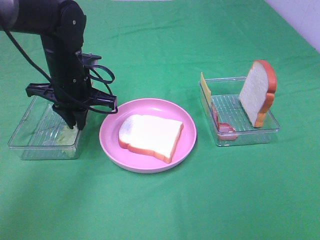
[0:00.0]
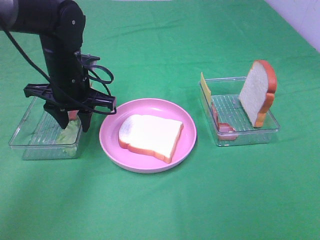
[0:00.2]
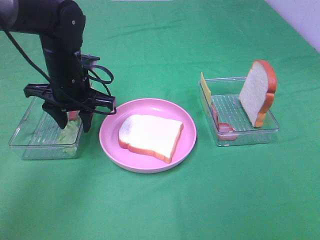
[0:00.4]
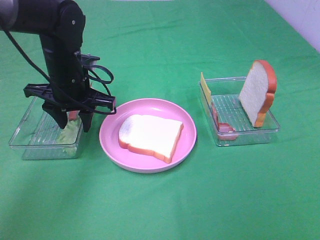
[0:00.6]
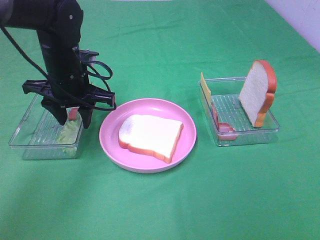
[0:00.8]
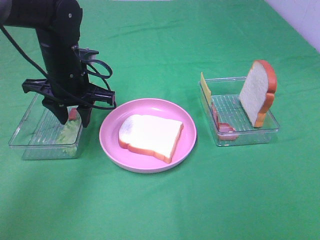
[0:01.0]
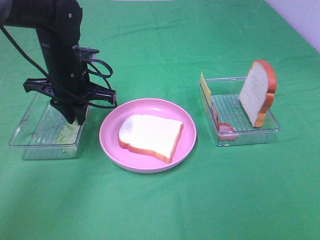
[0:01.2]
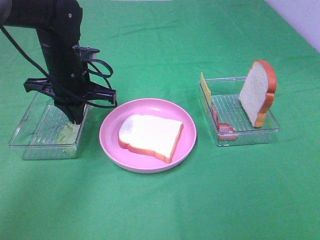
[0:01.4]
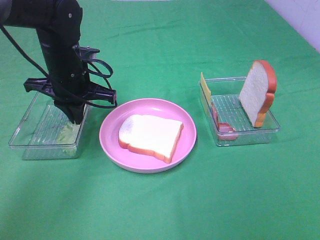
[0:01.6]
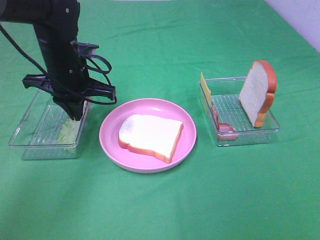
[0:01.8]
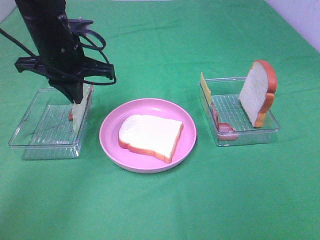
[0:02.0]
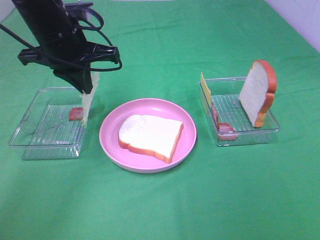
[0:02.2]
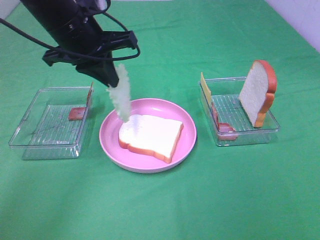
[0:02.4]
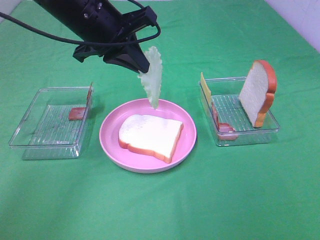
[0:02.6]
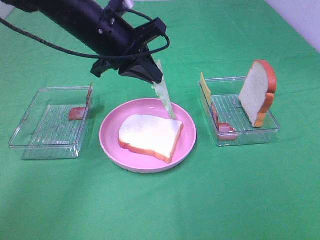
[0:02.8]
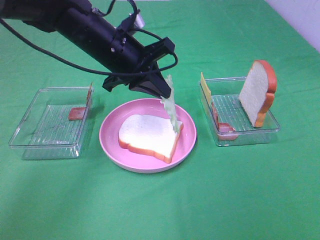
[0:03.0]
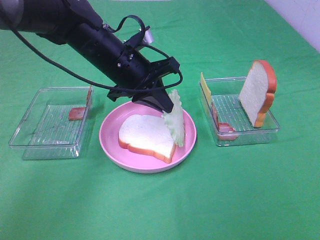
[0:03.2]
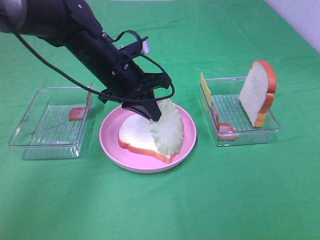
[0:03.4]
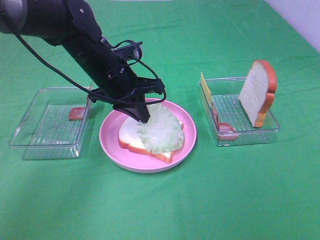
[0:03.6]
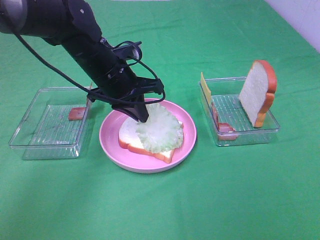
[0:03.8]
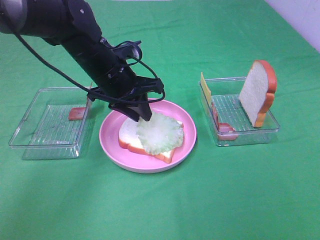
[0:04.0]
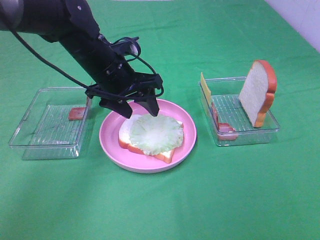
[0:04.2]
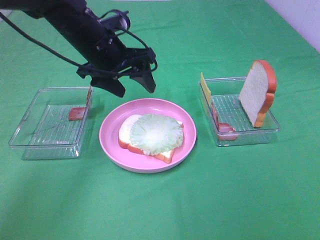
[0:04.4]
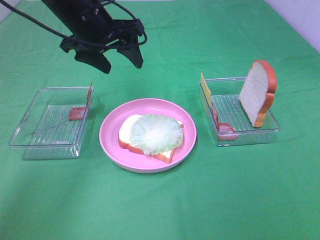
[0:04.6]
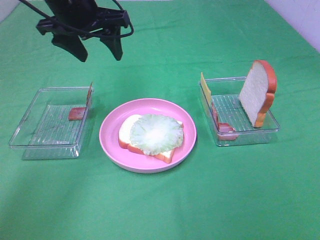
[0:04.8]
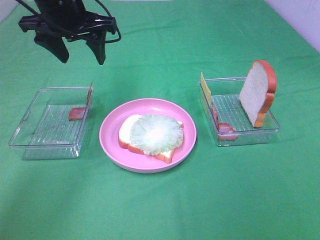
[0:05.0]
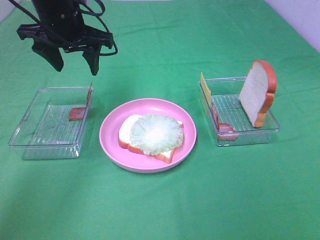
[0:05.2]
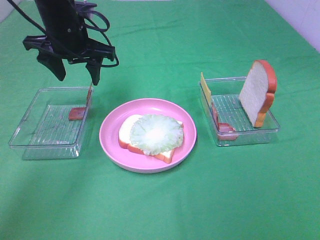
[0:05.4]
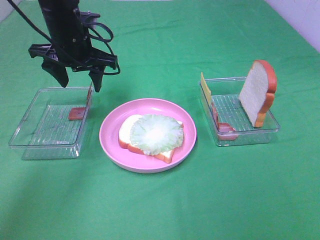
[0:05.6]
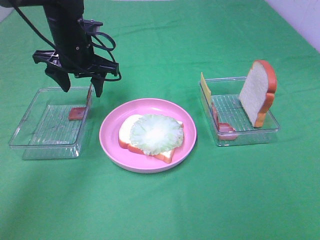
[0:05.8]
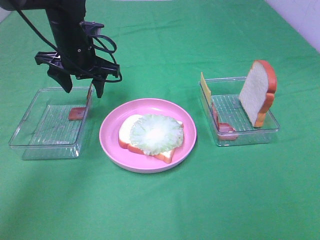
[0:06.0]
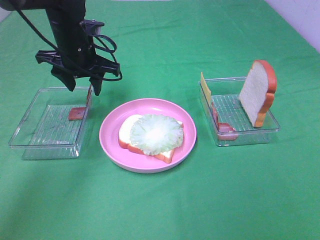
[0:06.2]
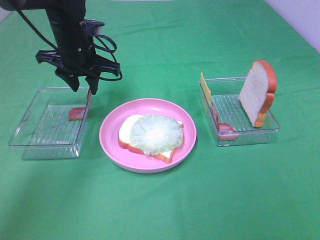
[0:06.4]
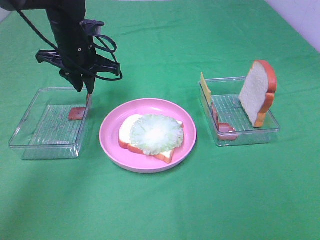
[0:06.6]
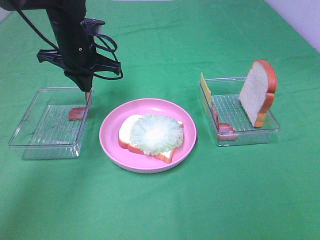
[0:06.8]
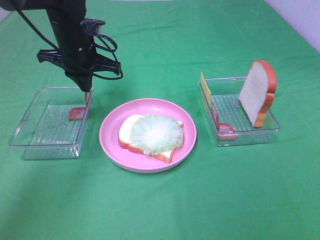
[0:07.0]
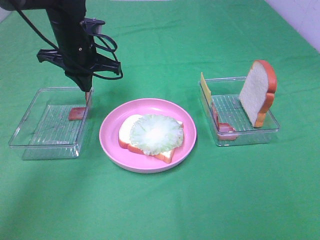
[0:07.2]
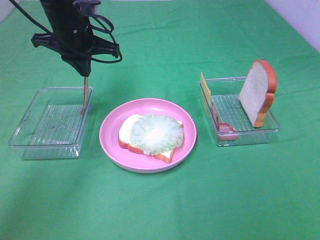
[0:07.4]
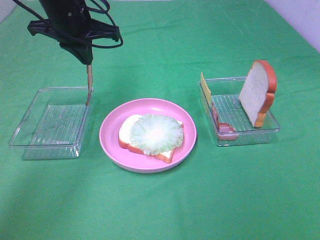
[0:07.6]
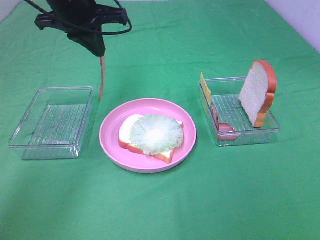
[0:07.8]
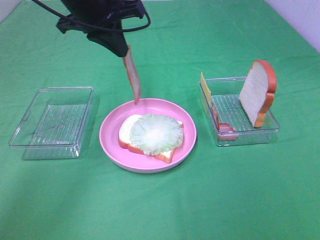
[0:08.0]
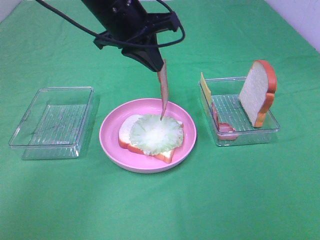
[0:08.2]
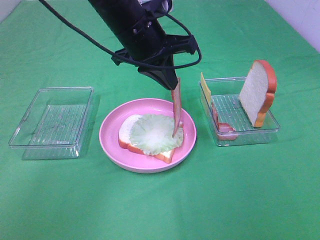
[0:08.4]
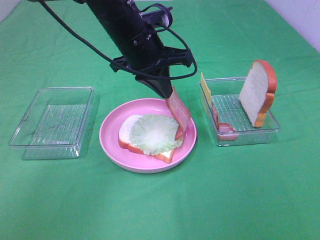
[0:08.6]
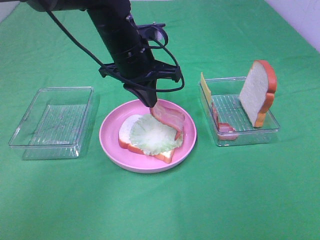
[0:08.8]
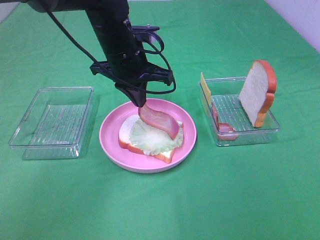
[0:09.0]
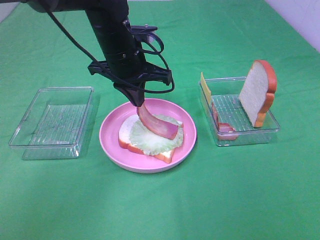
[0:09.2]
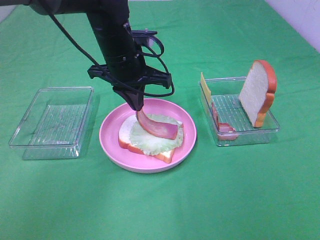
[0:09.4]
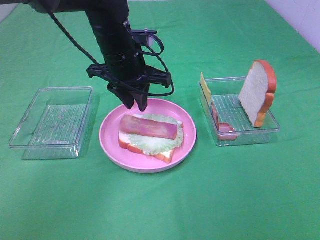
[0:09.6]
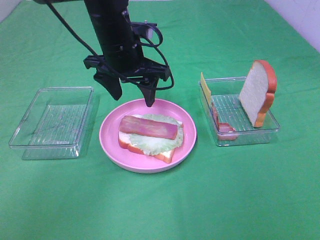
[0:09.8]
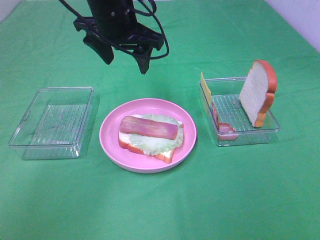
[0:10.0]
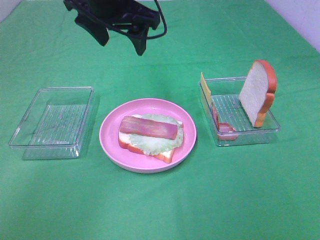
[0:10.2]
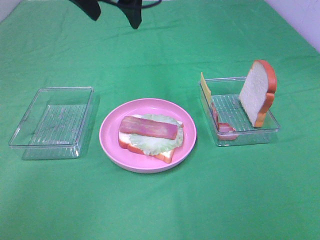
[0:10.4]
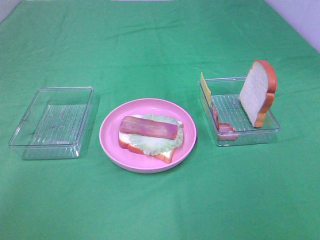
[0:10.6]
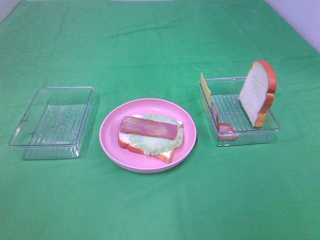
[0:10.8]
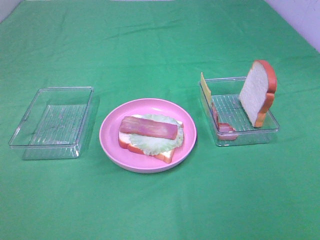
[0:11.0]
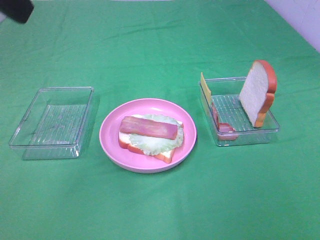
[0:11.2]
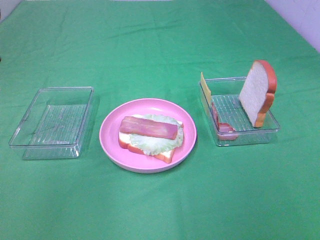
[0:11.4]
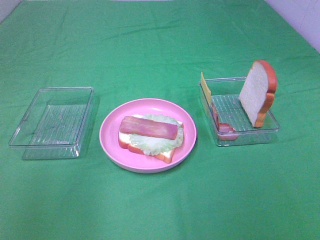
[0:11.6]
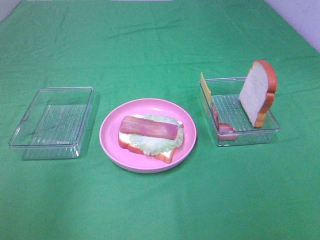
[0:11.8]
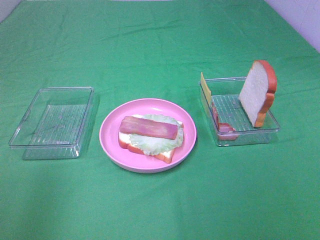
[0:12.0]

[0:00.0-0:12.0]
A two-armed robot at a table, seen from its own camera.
Task of the whole recording: Make sandwiches.
Step, 0:02.0 to 0:04.2: Left hand:place the lettuce slice on the bread slice.
Step, 0:04.4 to 0:07.4: Left hand:grab the bacon.
Step, 0:07.6 to 0:09.6: Left hand:place bacon on lettuce slice.
0:00.0 to 0:01.6: The two grippers keep their place.
0:01.6 to 0:03.0: The left gripper moves to the right, about 10 cm.
0:03.0 to 0:04.4: The left gripper opens up.
0:04.4 to 0:06.0: The left gripper ends up some 5 cm from where it was.
0:06.0 to 0:07.6: The left gripper travels upward by about 5 cm, and closes its fingers.
0:07.6 to 0:09.0: The left gripper heads to the right and downward, covering roughly 10 cm.
0:09.0 to 0:10.4: The left gripper travels upward by some 15 cm, and opens its fingers.
0:10.4 to 0:12.0: The left gripper is displaced backward and to the left by some 35 cm.

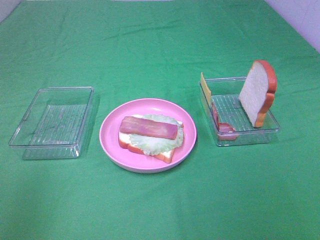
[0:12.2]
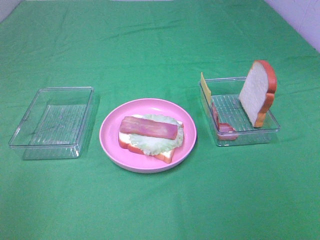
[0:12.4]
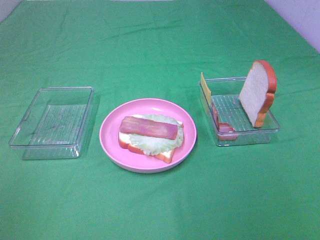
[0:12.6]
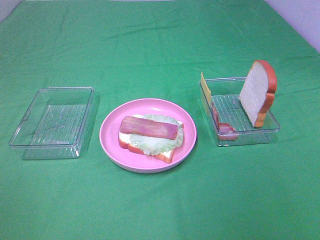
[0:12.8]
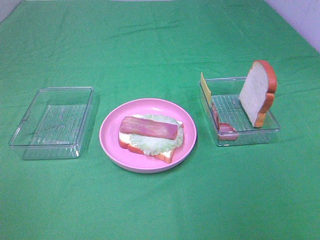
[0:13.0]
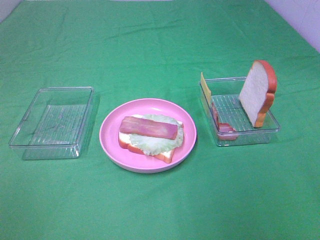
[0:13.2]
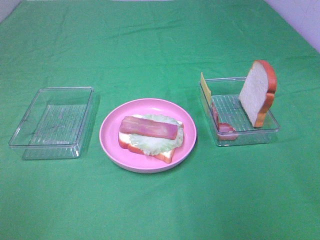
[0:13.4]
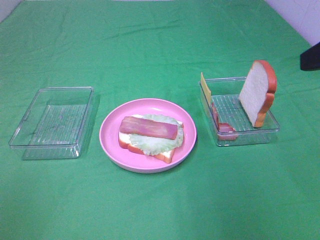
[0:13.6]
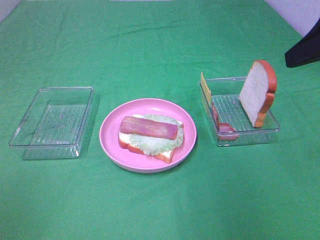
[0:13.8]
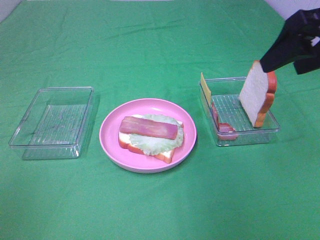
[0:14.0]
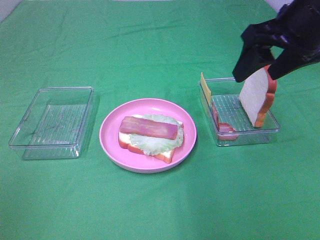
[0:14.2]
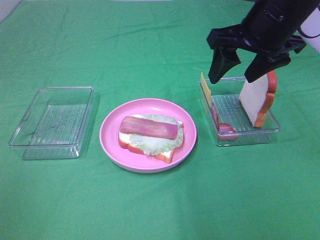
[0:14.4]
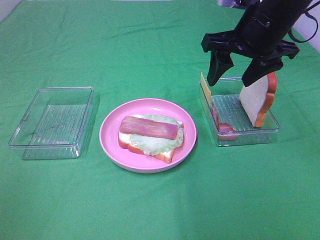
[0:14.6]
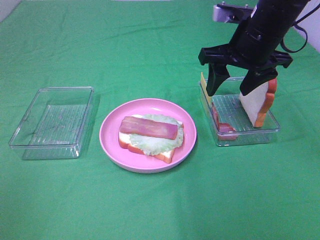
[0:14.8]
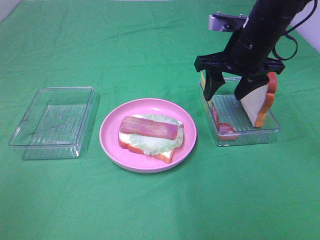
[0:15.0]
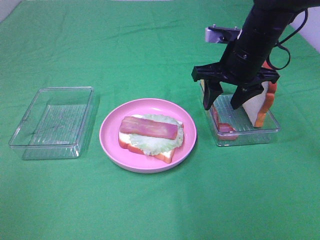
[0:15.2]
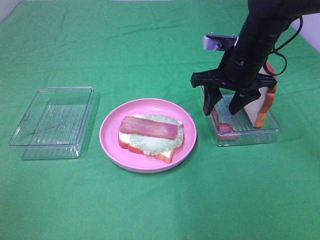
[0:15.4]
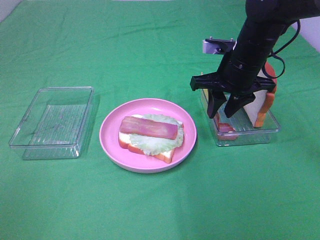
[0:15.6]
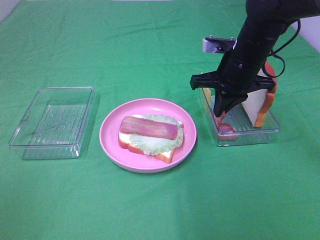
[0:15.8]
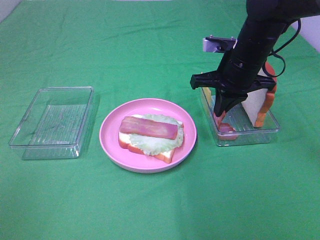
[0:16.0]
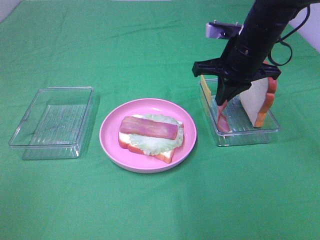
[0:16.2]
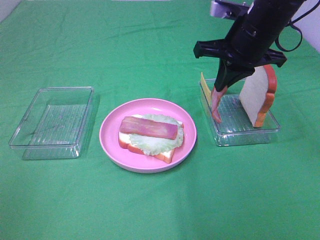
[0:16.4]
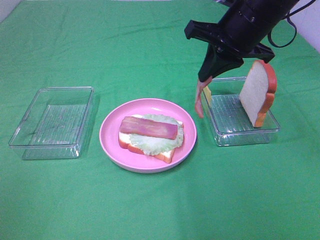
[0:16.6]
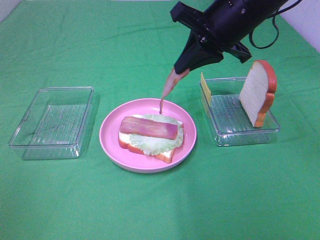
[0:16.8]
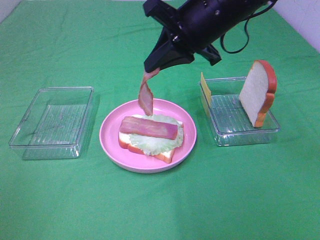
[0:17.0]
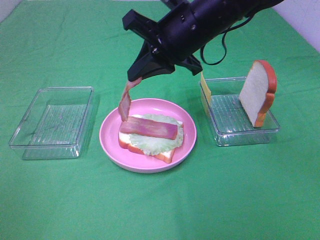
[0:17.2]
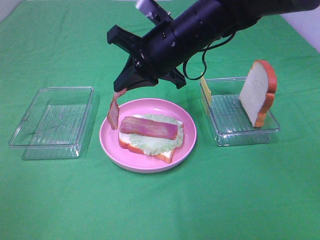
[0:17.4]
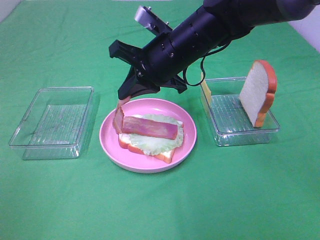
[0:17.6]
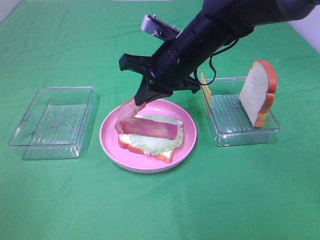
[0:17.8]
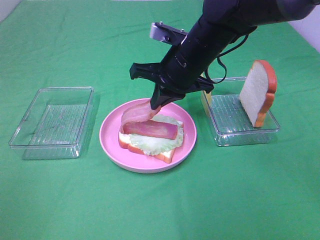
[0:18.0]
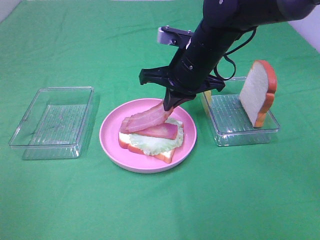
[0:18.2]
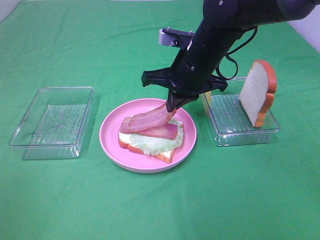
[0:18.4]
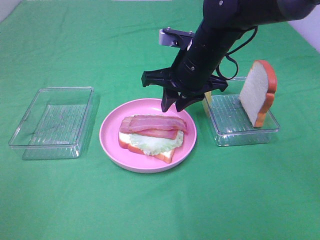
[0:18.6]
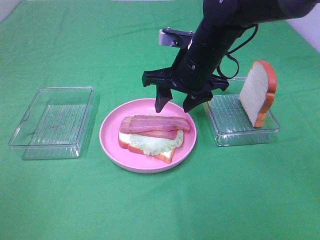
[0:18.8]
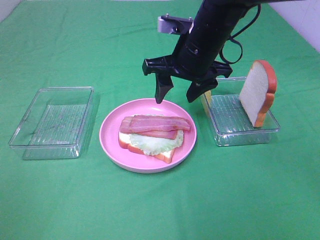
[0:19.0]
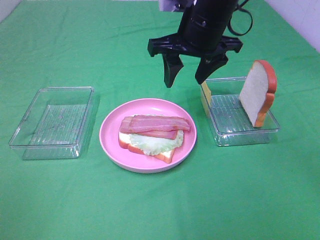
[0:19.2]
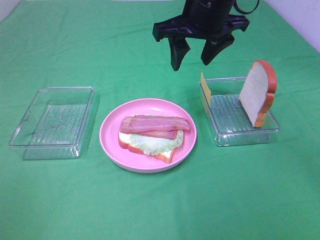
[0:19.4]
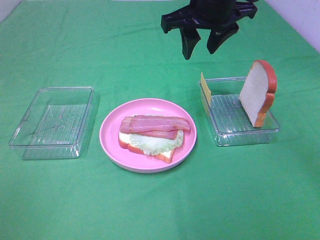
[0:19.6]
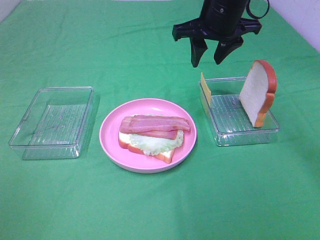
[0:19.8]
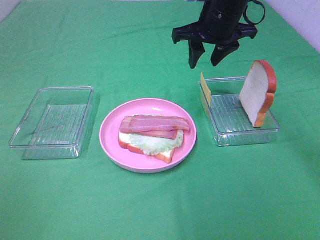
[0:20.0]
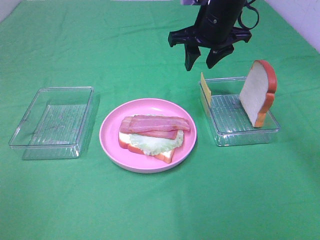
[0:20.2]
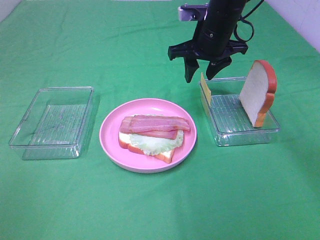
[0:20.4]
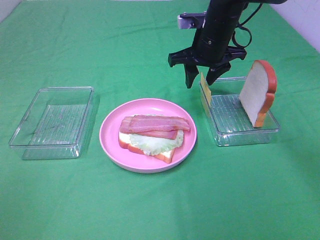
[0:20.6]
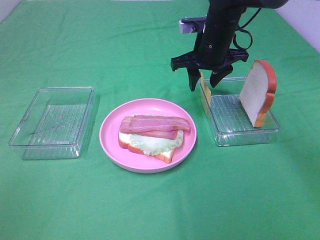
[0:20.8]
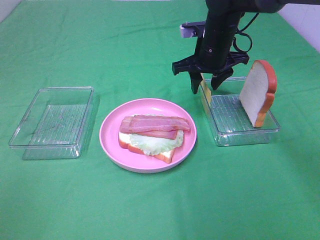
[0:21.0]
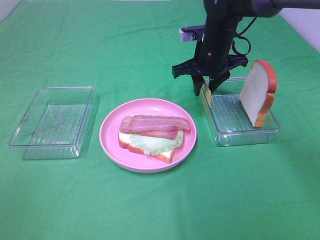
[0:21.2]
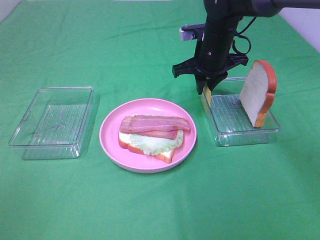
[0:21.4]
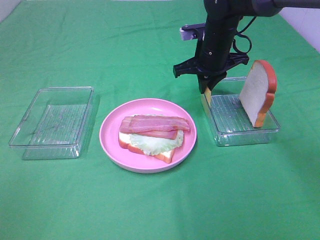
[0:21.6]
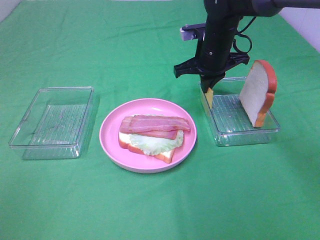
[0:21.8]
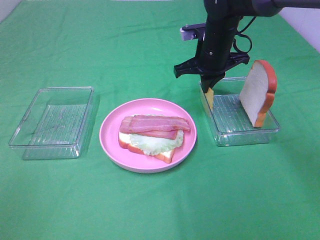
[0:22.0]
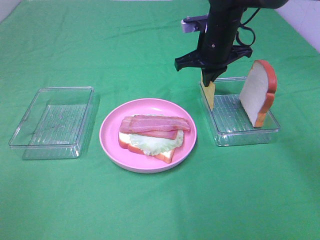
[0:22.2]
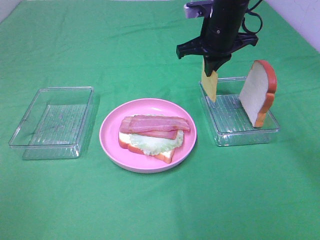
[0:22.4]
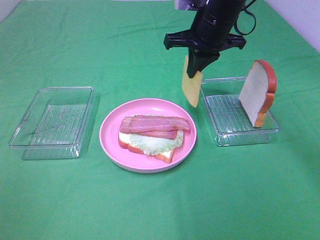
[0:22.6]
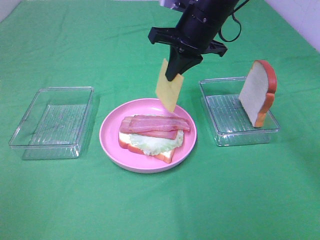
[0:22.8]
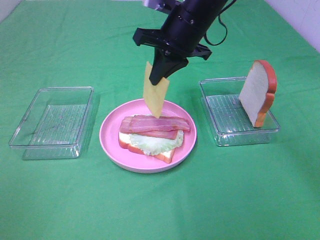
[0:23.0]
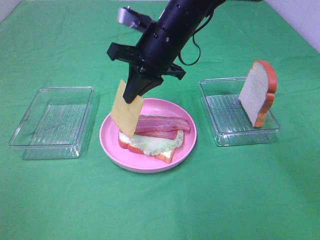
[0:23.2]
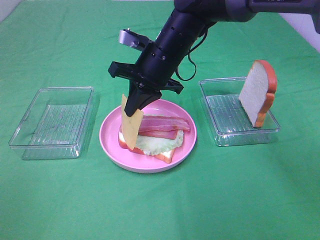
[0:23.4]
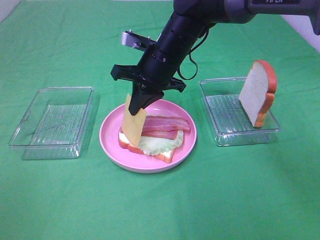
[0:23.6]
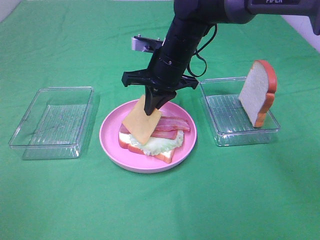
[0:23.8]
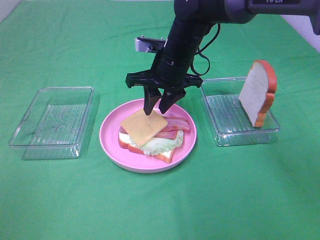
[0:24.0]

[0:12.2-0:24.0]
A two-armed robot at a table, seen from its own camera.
Task of the whole recording: Make sandwiches.
Step, 0:12.2 to 0:15.8: Right hand:grab the bacon.
Step, 0:16.0 to 0:18.6: Right hand:place bacon on bacon.
Step, 0:18.8 to 0:21.8: Right hand:grab the cheese slice.
0:13.6 to 0:15.2: The right gripper shifts roughly 25 cm forward, downward and to the left.
0:15.2 to 0:16.6: The right gripper moves upward, roughly 5 cm, and closes up.
0:16.6 to 0:18.2: The right gripper moves downward and to the left, some 10 cm.
0:18.2 to 0:19.6: The right gripper travels upward by roughly 10 cm, and opens up.
0:19.6 to 0:21.0: The right gripper moves downward and forward, approximately 10 cm.
0:21.0 to 0:22.6: The right gripper heads upward, covering approximately 5 cm, and closes up.
0:22.6 to 0:24.0: The right gripper heads downward and to the left, covering about 10 cm, and opens up.
